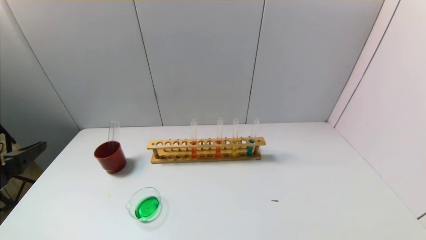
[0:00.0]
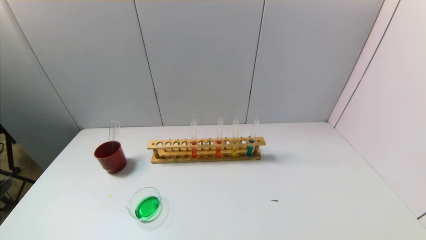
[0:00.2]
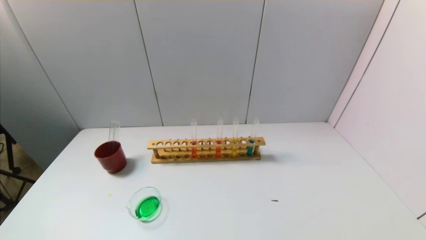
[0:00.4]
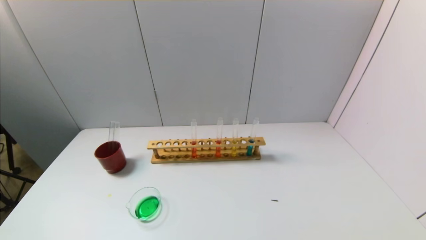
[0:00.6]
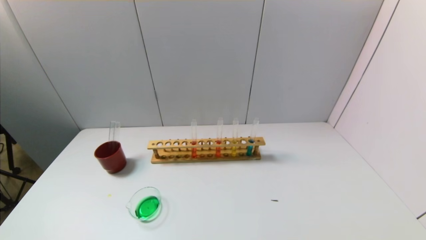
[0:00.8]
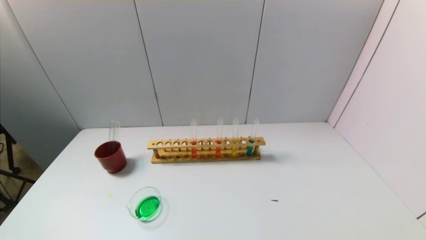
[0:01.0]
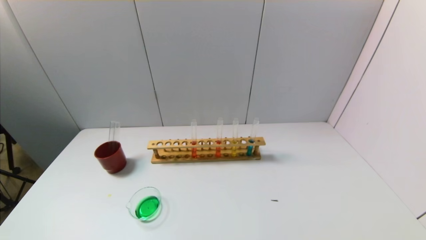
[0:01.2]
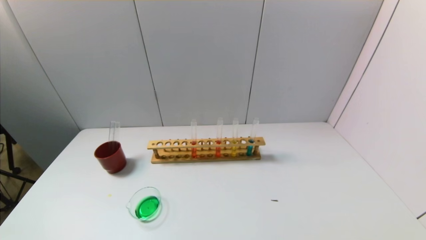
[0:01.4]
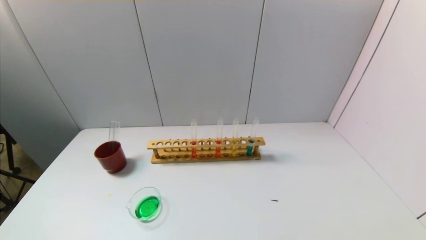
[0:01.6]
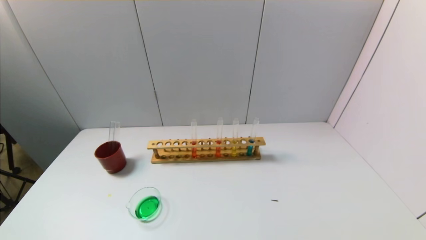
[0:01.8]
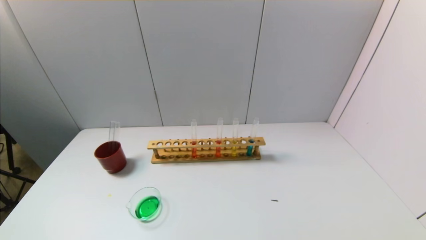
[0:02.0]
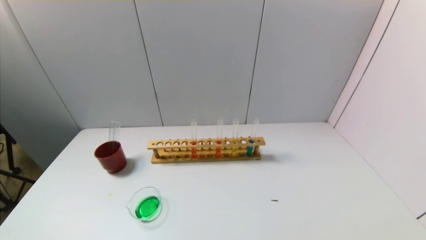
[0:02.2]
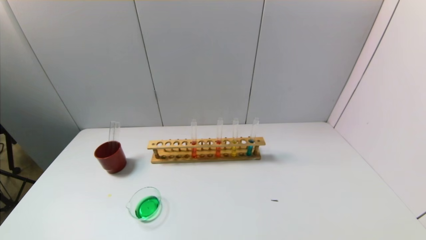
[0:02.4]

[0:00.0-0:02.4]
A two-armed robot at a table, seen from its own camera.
Task of the whole recording: pick up the test tube with yellow pigment and the test tube with blue pigment by grippers and pour them into the beaker.
0:00.0 to 0:01.2: The left gripper is displaced downward and backward by about 20 cm.
